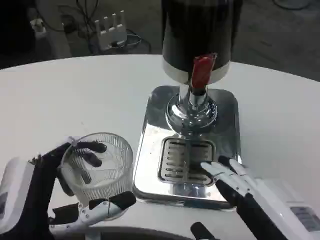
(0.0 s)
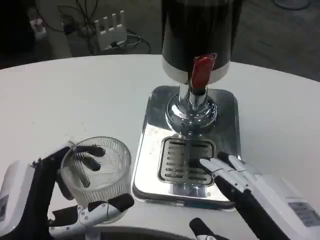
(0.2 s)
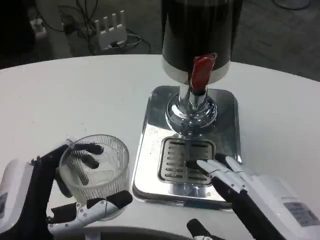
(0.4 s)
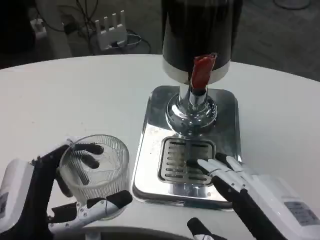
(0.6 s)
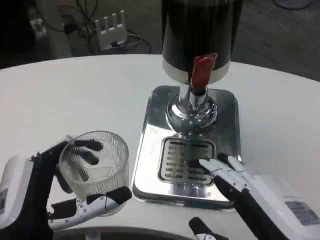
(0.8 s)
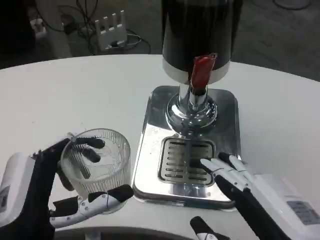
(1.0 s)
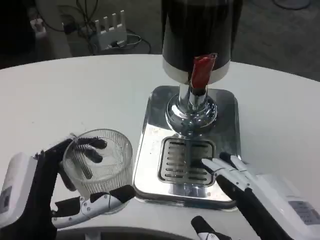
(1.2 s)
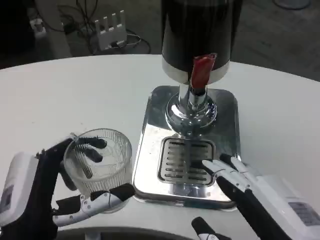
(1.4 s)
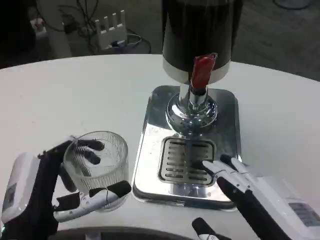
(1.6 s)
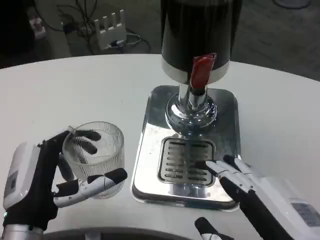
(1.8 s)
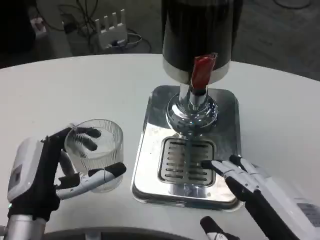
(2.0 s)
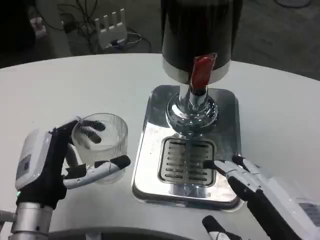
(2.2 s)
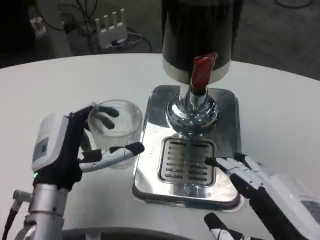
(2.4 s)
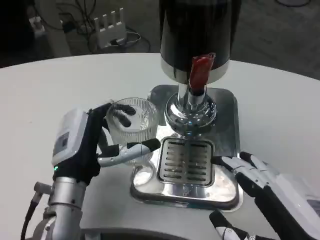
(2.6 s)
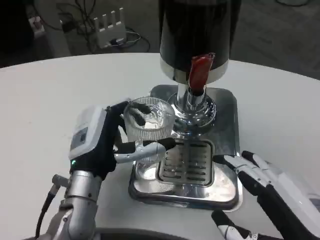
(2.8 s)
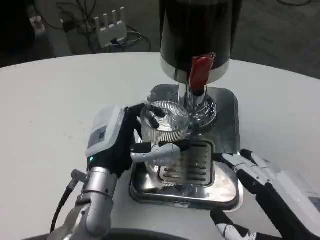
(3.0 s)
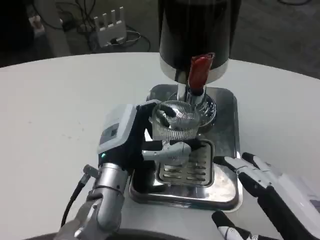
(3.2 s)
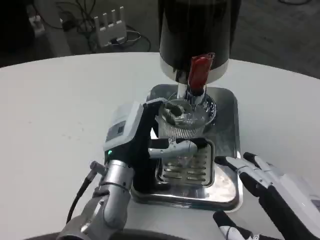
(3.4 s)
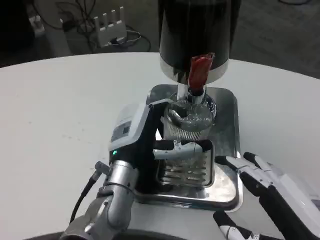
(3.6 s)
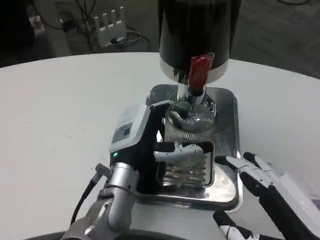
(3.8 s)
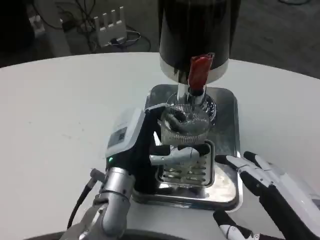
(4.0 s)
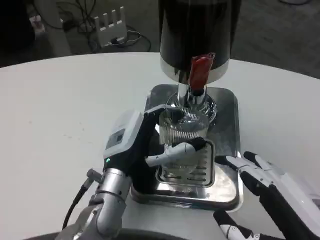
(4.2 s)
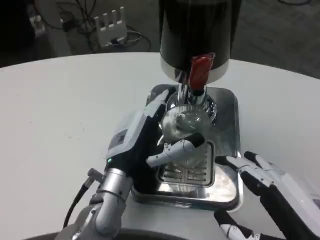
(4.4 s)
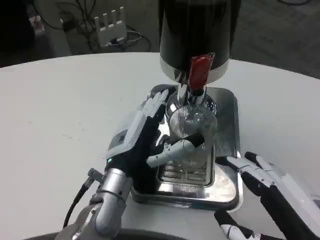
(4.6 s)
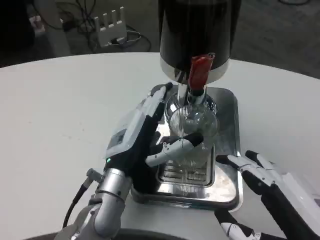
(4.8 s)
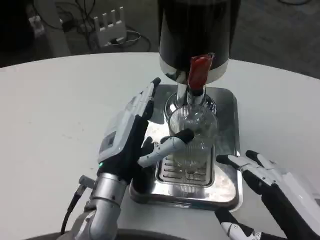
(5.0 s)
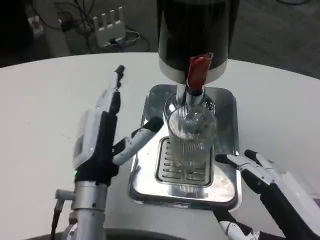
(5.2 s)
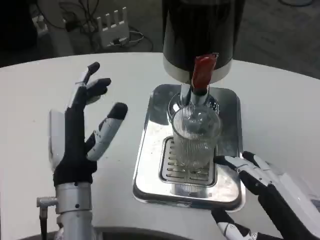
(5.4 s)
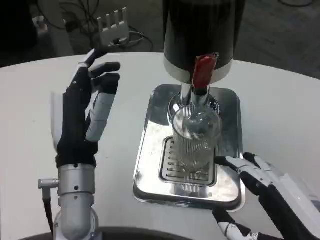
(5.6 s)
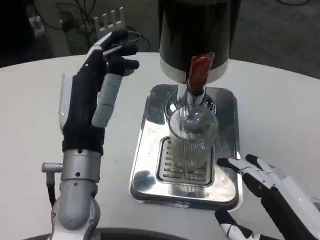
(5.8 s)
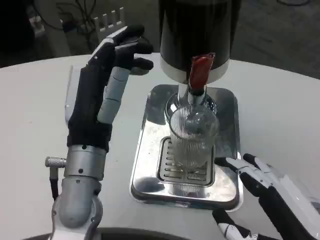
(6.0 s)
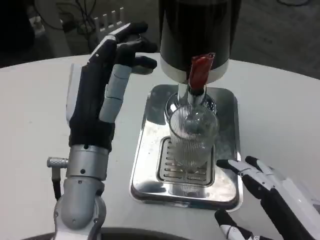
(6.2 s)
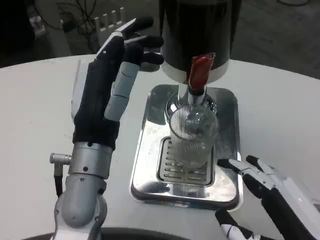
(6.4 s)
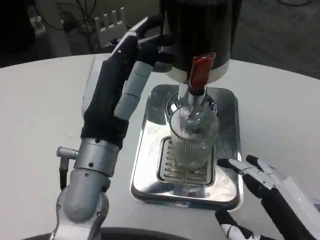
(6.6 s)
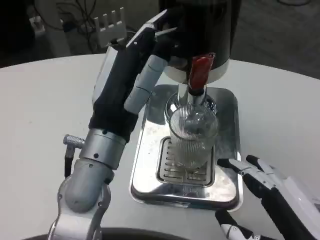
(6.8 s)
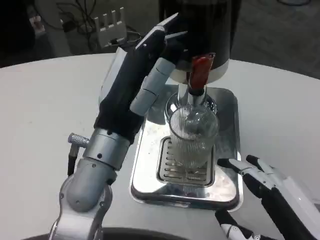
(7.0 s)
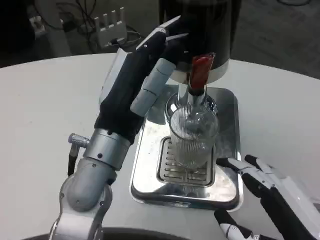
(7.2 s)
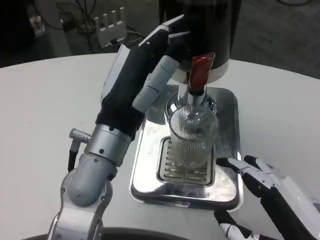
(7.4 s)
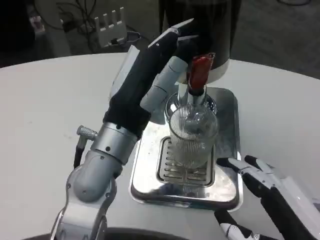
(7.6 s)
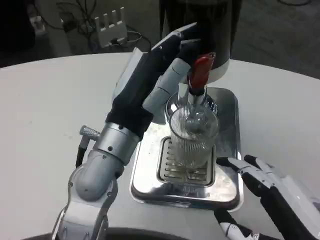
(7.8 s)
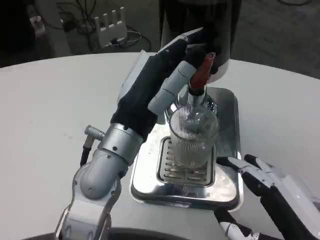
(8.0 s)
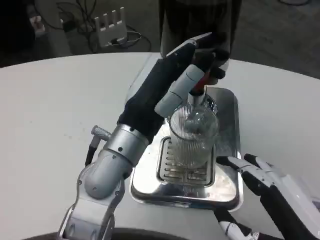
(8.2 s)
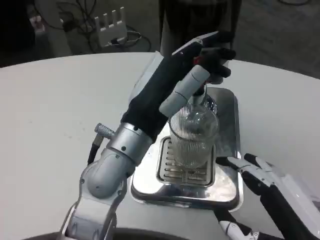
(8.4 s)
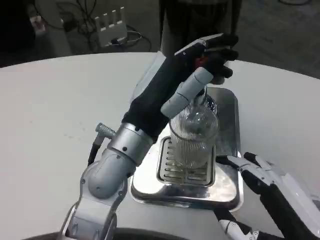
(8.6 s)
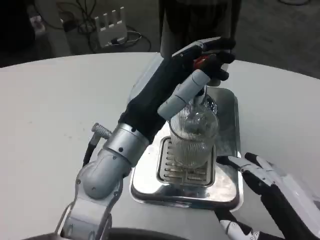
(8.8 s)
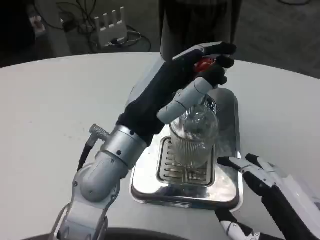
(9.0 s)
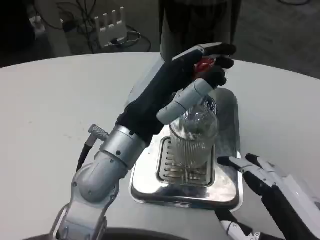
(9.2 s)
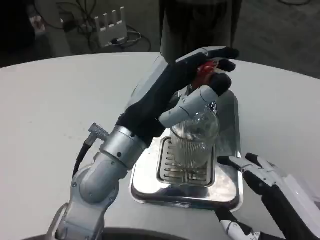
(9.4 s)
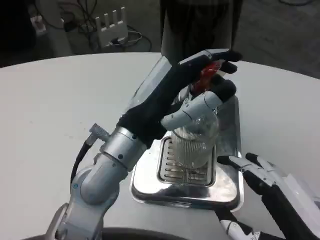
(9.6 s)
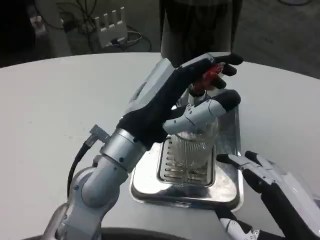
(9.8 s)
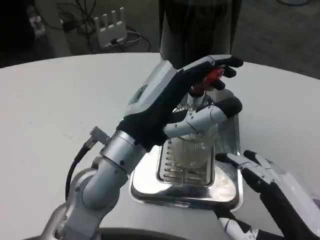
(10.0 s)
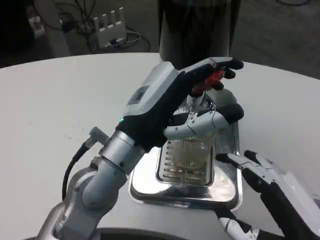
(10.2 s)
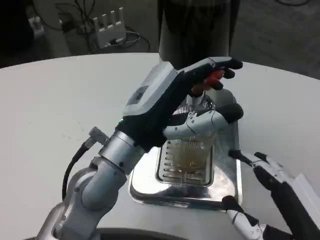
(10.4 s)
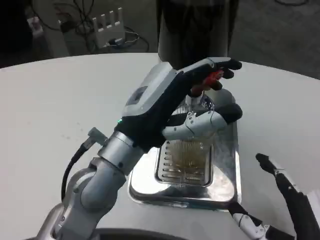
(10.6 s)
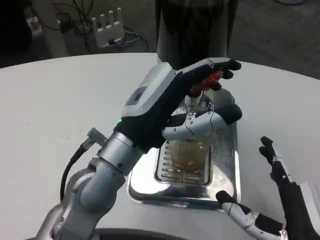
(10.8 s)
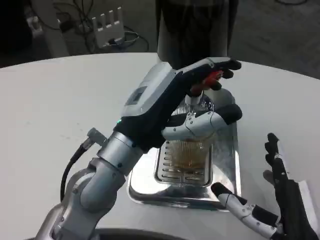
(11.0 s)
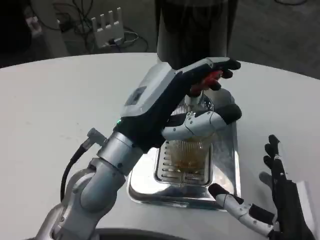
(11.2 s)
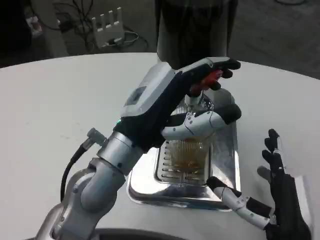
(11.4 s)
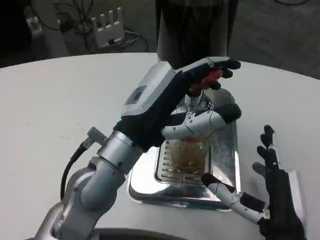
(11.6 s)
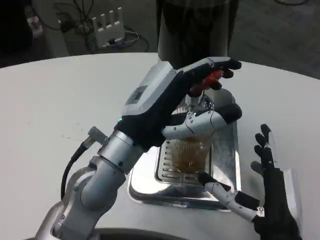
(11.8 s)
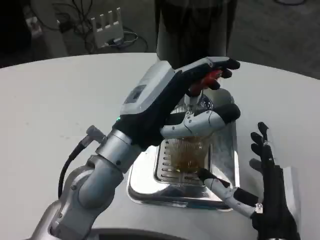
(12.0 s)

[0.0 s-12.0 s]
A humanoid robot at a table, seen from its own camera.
Task of the whole recording: Grasp the cup under the faucet to collect the drink, then remove the cup.
0.0 to 1.6 s: The hands stay close to where they were, moving slightly.
1.6 to 3.0 s: The left hand travels forward and to the right by about 15 cm.
3.0 to 4.4 s: The hands stay close to where they were, moving slightly.
4.4 to 6.0 s: The left hand shifts roughly 5 cm upward.
7.6 to 9.0 s: The hands stay close to where they were, moving slightly.
10.4 to 12.0 s: The right hand is displaced forward and to the left by approximately 10 cm.

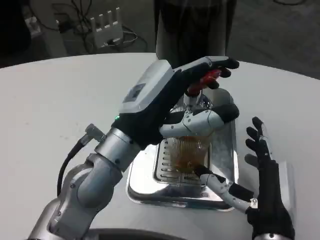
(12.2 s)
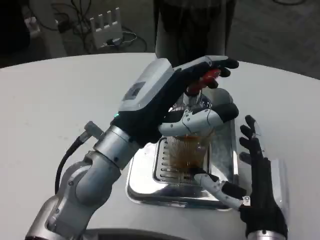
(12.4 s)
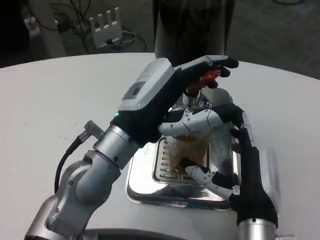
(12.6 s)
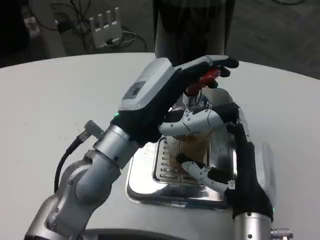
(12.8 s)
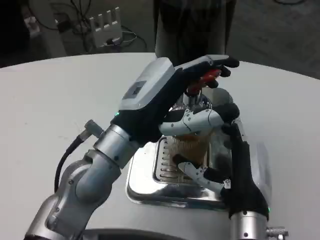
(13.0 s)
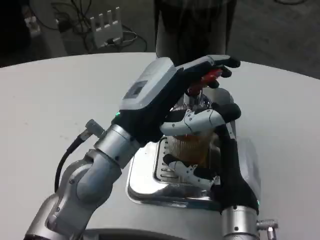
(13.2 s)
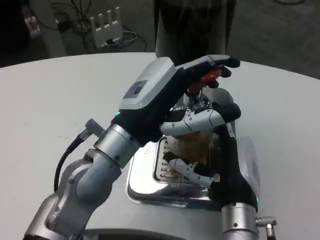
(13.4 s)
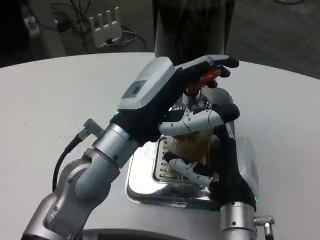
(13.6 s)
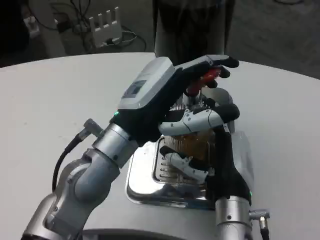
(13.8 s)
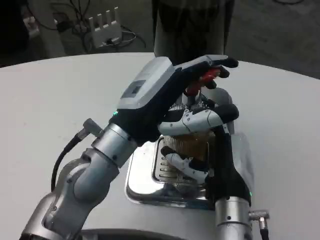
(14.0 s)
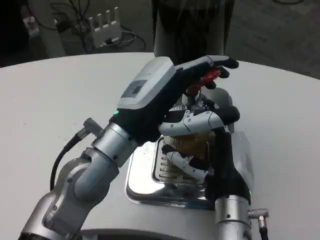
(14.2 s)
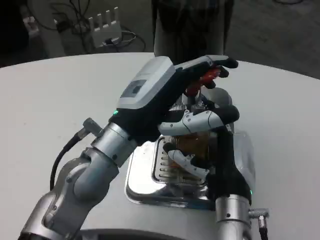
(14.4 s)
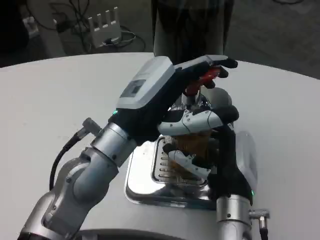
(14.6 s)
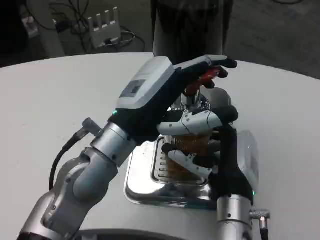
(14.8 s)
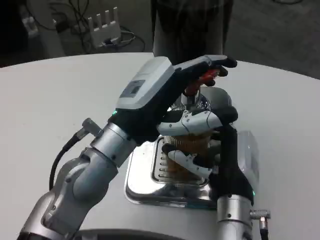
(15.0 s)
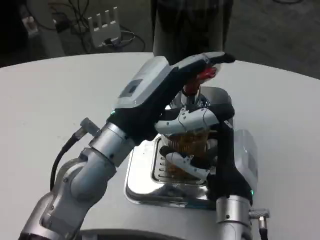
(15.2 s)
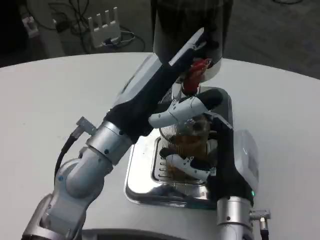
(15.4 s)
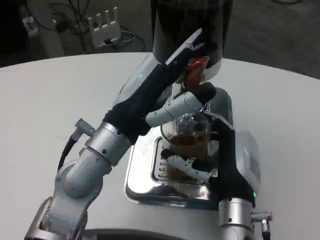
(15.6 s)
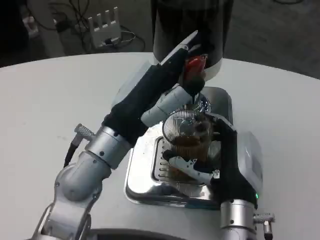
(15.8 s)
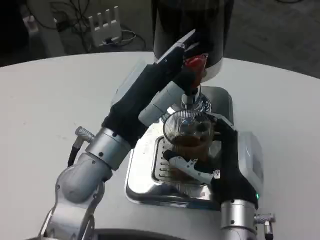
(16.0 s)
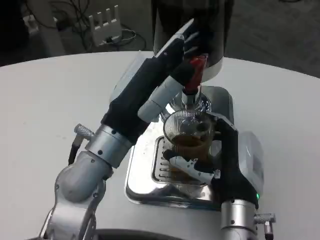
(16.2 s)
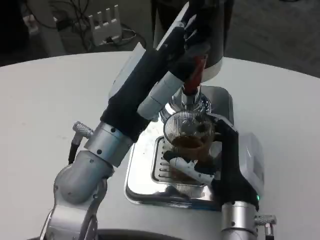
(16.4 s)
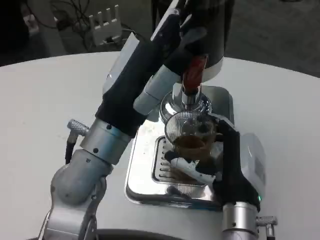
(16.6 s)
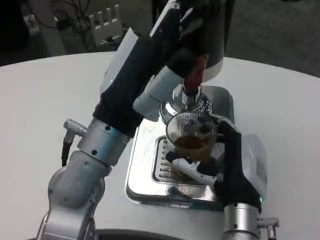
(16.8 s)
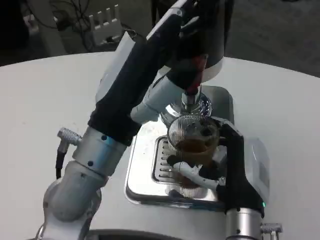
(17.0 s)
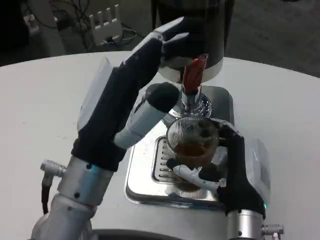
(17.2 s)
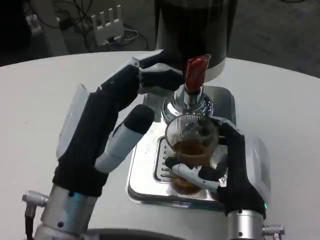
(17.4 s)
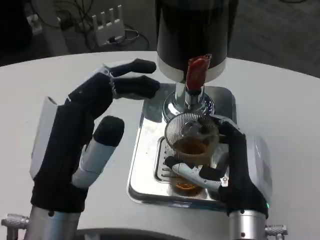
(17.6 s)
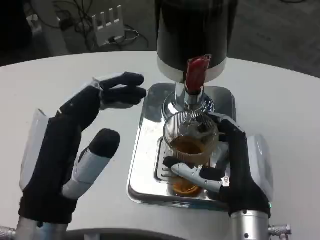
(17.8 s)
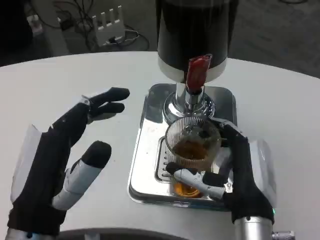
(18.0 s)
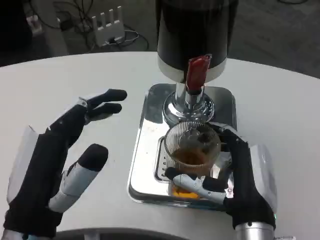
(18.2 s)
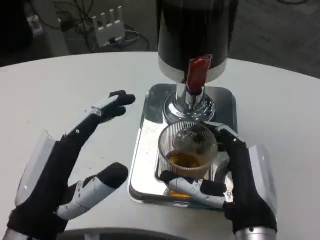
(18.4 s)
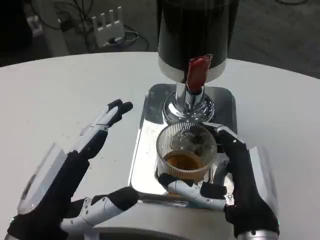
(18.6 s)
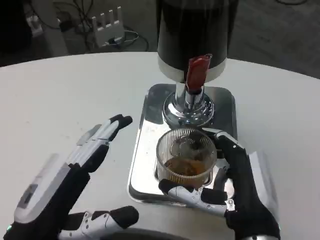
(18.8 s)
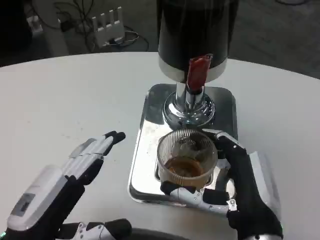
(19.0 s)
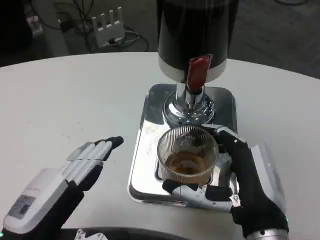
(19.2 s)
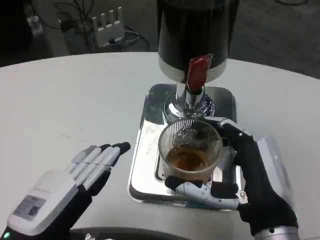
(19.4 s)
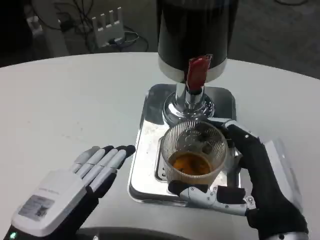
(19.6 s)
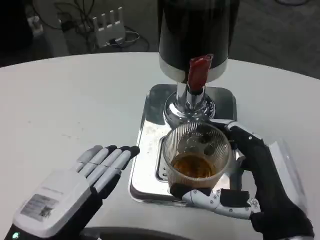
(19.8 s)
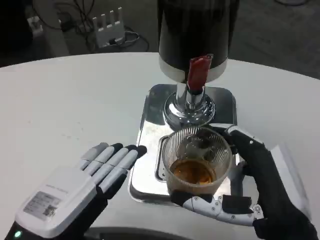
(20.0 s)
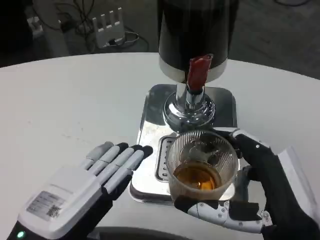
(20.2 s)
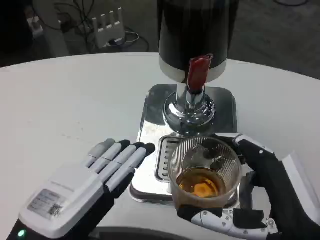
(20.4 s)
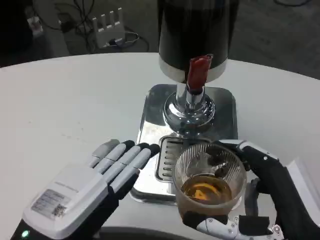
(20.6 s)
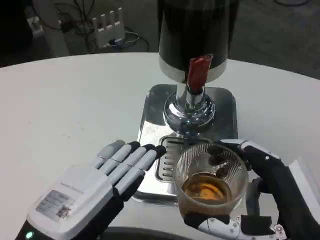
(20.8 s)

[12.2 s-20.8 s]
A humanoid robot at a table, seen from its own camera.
Task of the whole recording: Grasp the cup under the faucet to collect the drink, then remove the cup.
12.2 to 13.6 s: The right hand ends up roughly 5 cm from where it was.
13.6 to 15.0 s: Both hands stay put.
16.6 to 18.0 s: The left hand goes roughly 15 cm backward, downward and to the left.
18.0 to 19.4 s: The right hand changes place by roughly 5 cm; the left hand heads to the left, covering approximately 5 cm.
19.4 to 20.8 s: The right hand goes roughly 5 cm backward, while the left hand changes place by about 5 cm.

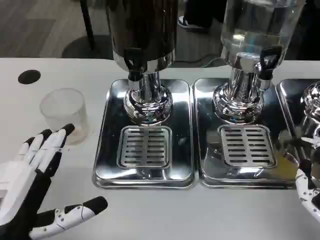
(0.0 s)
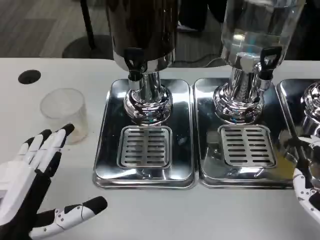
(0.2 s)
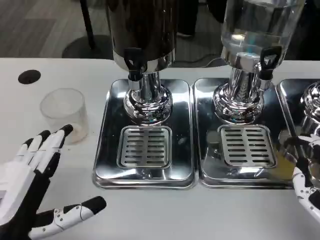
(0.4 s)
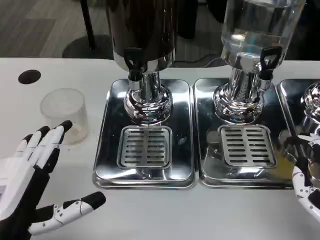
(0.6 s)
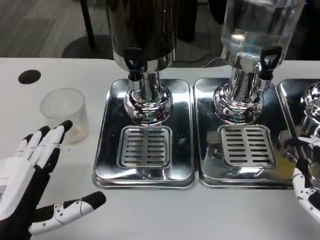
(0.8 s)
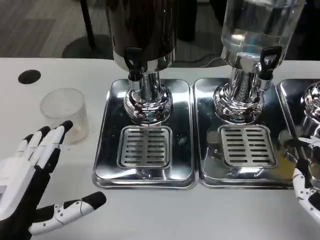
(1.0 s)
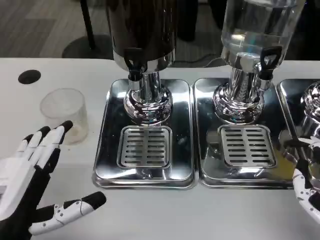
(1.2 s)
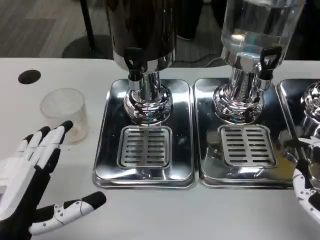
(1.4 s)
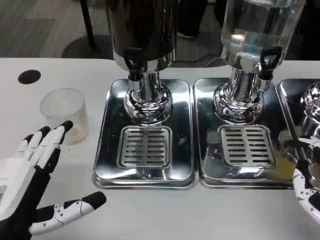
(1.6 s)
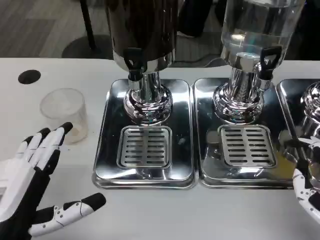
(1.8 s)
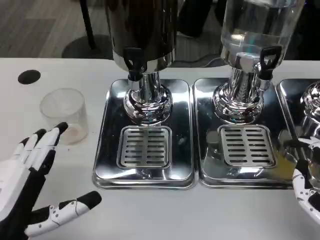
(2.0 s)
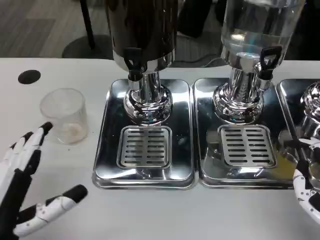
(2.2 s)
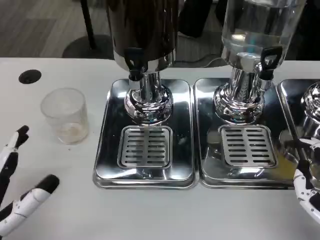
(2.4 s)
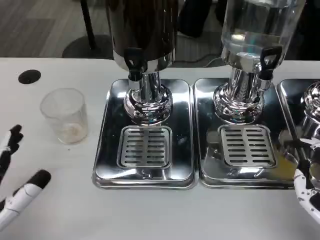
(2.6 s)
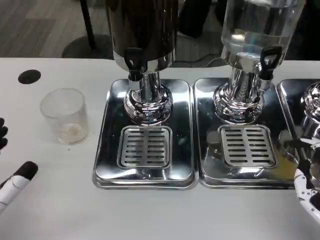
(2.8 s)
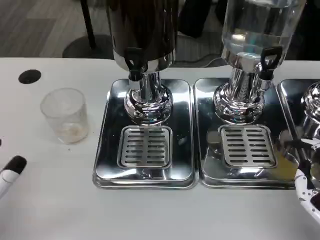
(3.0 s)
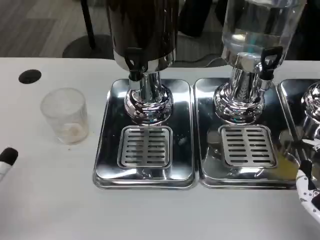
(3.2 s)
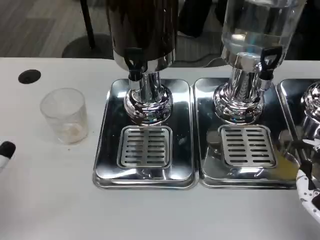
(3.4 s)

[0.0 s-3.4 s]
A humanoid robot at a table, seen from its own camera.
Task of the whole recording: Grasp the cup under the faucet to collect the drink, then remove the cup.
0.0 to 1.6 s: Both hands stay put.
1.6 to 3.4 s: The left hand goes roughly 5 cm to the left.
